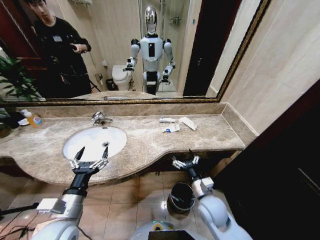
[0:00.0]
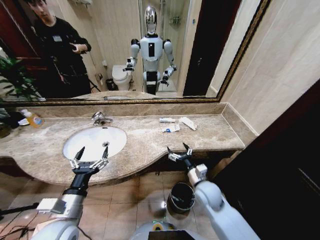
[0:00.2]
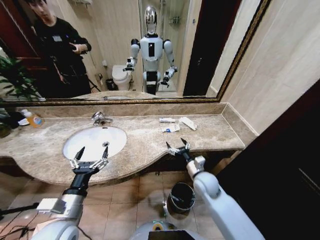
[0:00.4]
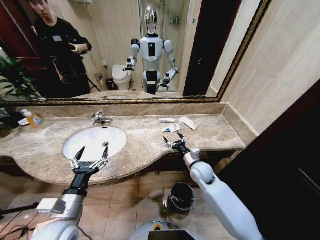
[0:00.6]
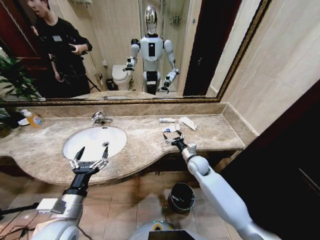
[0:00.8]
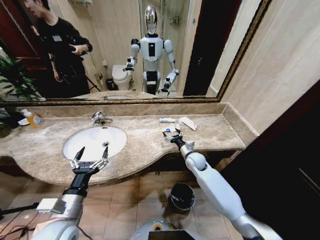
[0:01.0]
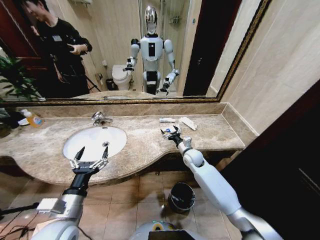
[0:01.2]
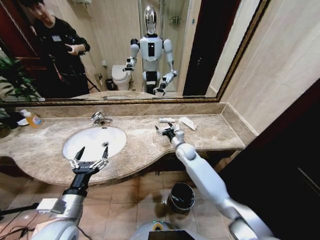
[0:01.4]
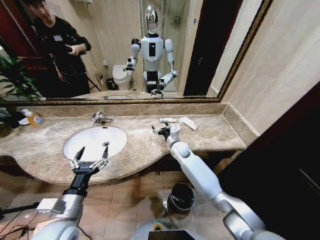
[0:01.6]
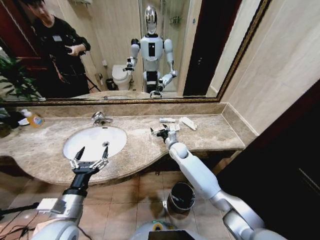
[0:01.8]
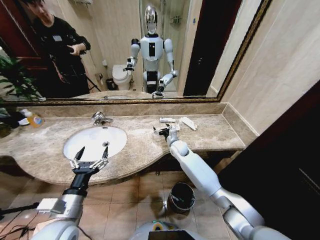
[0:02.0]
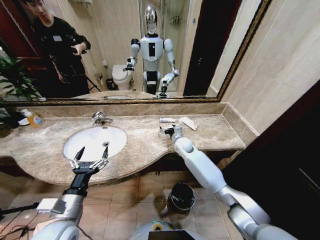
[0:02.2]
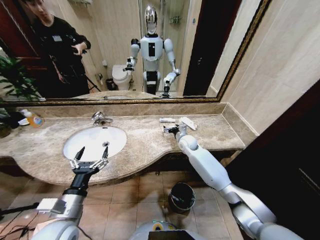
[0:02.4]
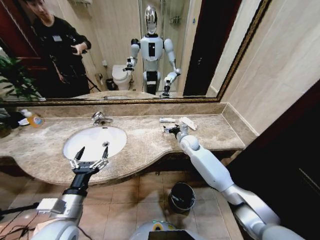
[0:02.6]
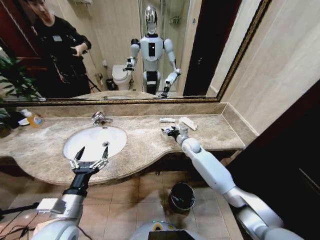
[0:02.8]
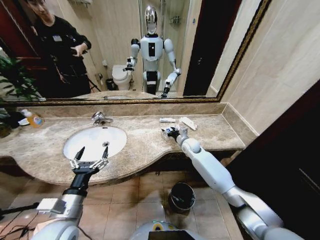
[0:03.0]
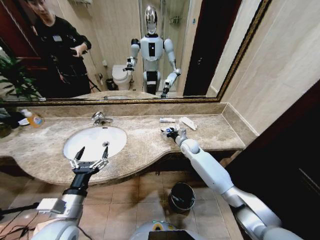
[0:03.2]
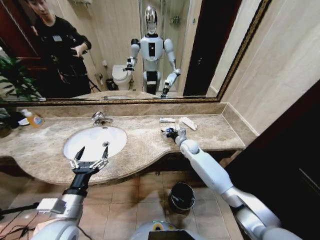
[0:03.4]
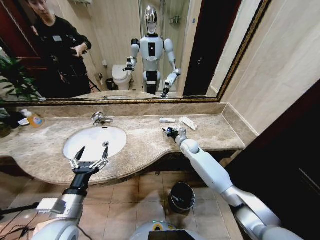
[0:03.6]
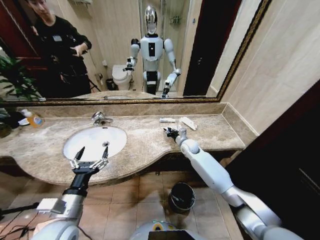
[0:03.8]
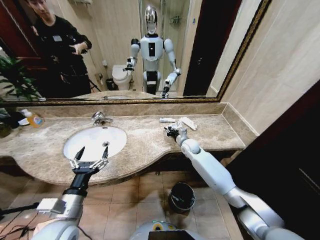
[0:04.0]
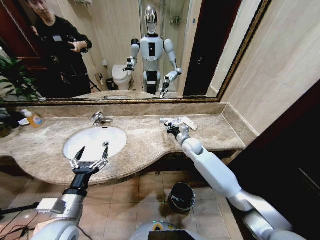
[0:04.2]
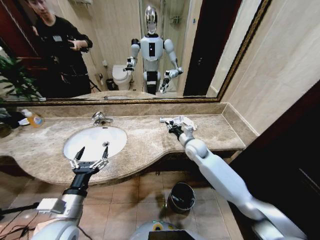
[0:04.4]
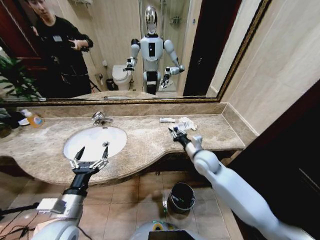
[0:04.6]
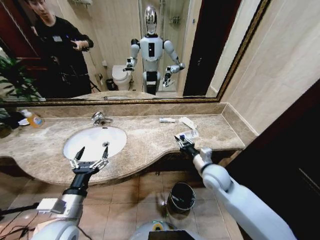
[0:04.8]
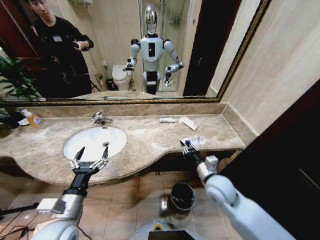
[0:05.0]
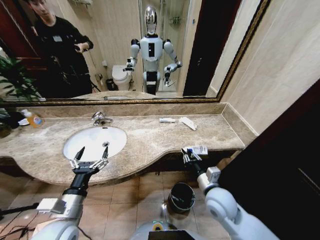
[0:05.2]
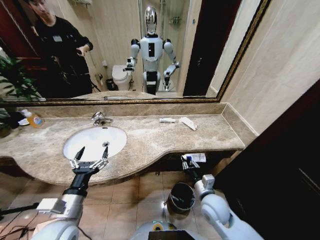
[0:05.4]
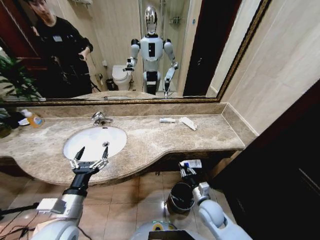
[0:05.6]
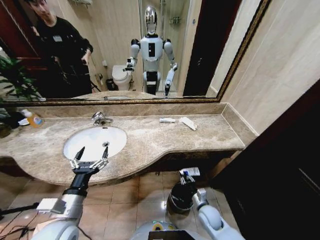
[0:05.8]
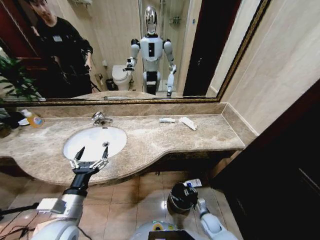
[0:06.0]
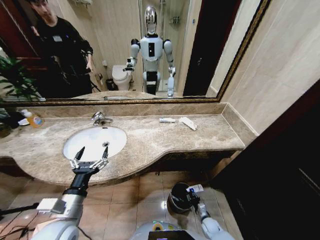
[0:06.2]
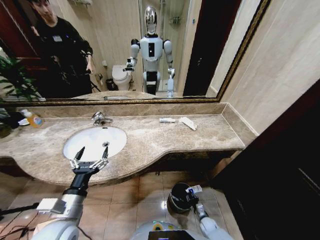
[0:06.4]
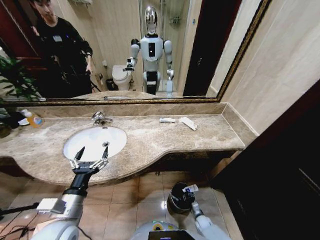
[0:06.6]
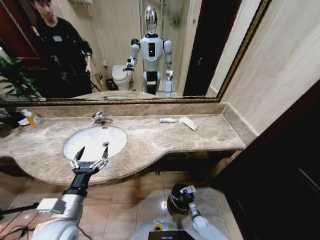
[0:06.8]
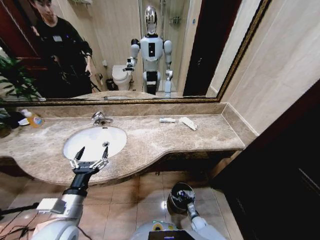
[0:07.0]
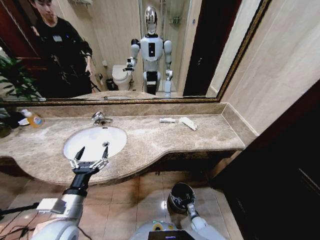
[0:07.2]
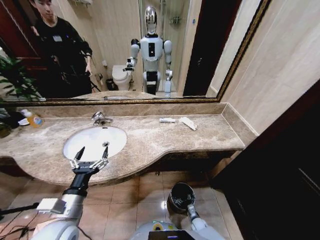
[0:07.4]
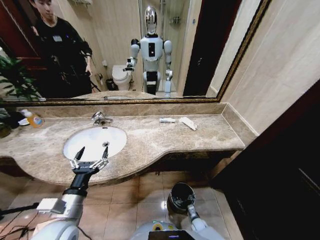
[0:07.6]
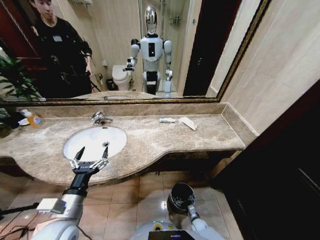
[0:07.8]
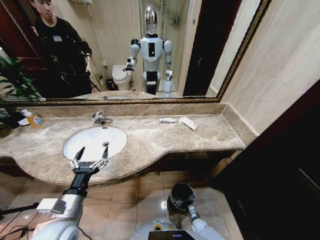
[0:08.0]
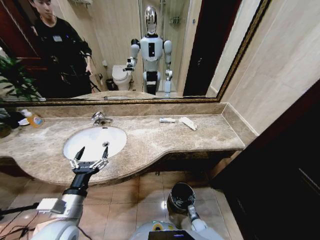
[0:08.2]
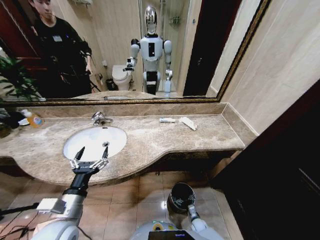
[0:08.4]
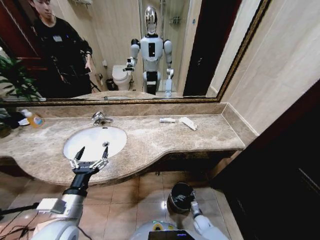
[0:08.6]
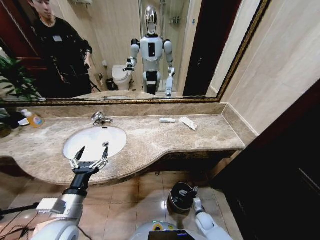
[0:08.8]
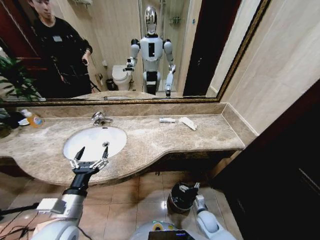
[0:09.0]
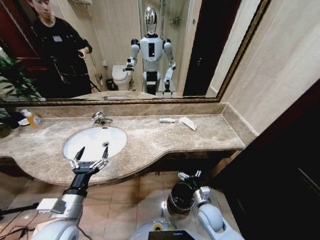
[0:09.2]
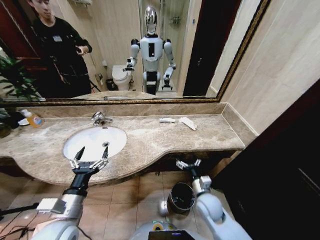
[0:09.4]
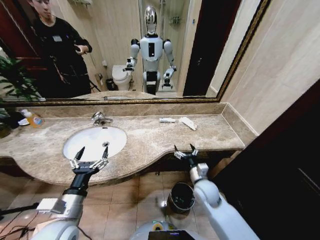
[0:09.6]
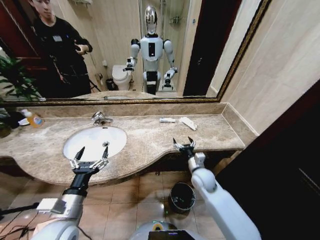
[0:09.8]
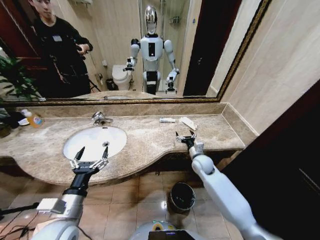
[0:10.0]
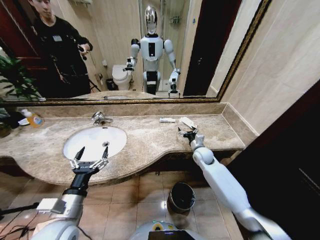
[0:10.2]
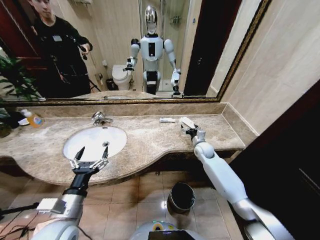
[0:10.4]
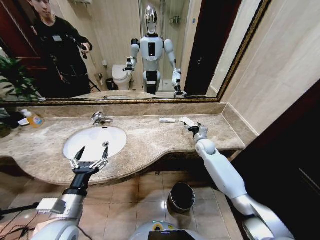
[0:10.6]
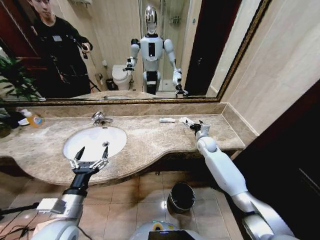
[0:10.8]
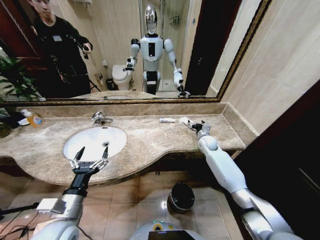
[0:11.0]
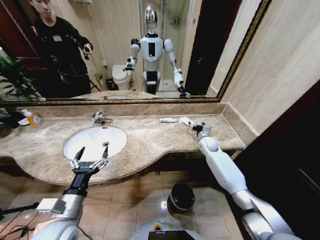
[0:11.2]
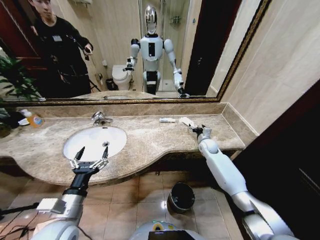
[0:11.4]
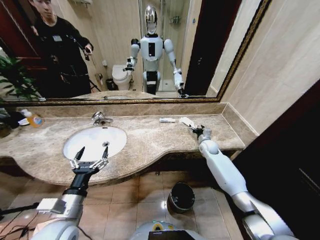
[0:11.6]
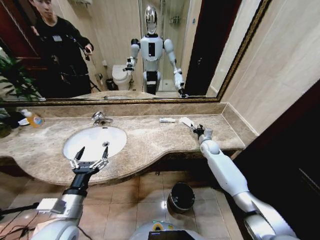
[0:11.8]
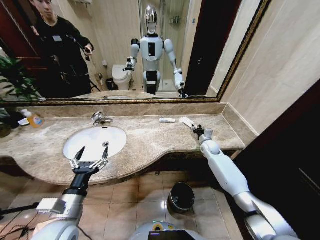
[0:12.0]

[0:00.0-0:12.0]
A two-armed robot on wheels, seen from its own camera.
Task of the whole recording: Pick up the trash from the sink and place it in the trash bin.
0:00.0 to 0:01.6: The right gripper moves forward, about 25 cm.
0:01.6 to 0:03.0: The right gripper travels to the right by some 5 cm.
0:03.0 to 0:04.4: The right gripper heads backward and upward, covering roughly 10 cm, and closes its fingers.
0:04.4 to 0:06.0: The right gripper shifts approximately 40 cm downward and backward.
0:06.0 to 0:07.6: The right gripper is displaced downward by roughly 10 cm, and opens.
0:07.6 to 0:09.0: The right gripper travels upward by roughly 20 cm.
0:09.0 to 0:10.4: The right gripper is displaced forward and upward by roughly 35 cm.
0:10.4 to 0:12.0: The right gripper travels to the right by approximately 5 cm, and closes its fingers.

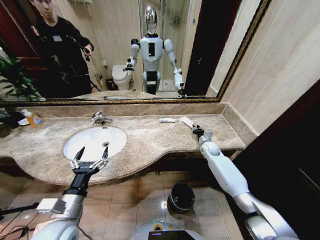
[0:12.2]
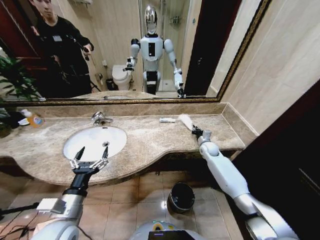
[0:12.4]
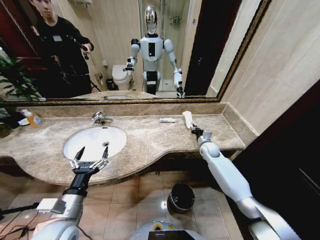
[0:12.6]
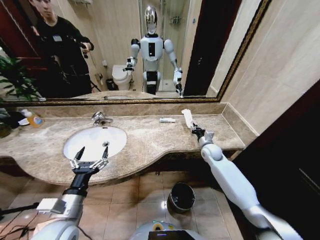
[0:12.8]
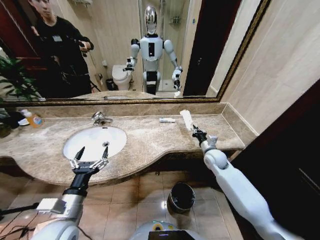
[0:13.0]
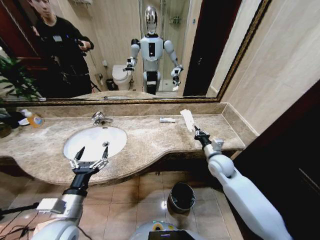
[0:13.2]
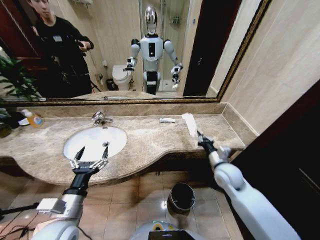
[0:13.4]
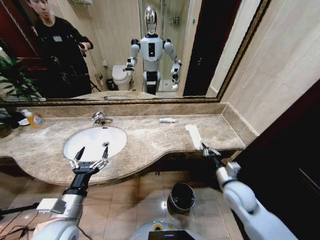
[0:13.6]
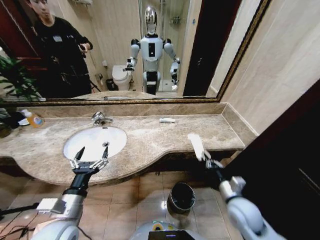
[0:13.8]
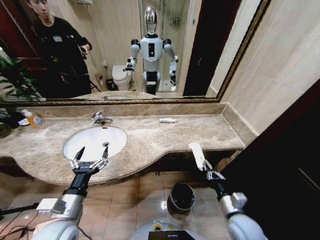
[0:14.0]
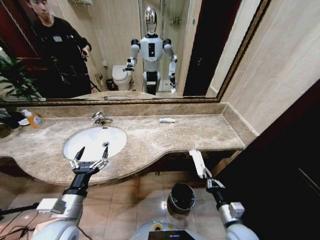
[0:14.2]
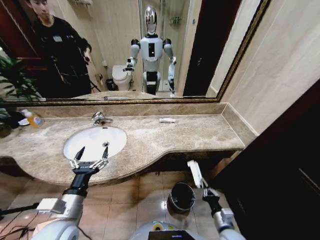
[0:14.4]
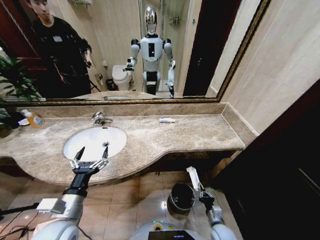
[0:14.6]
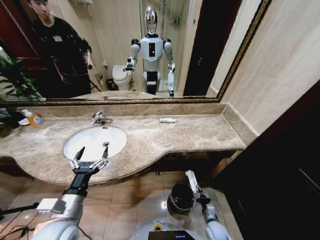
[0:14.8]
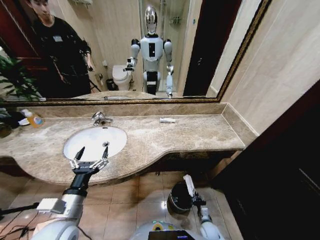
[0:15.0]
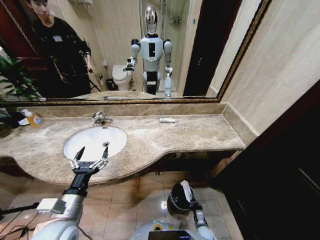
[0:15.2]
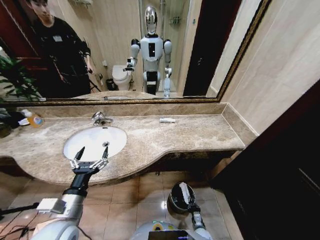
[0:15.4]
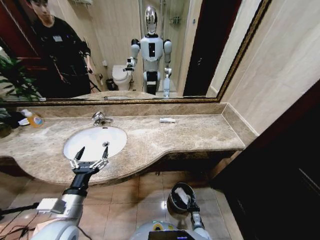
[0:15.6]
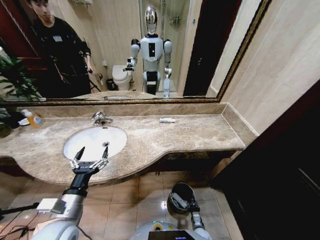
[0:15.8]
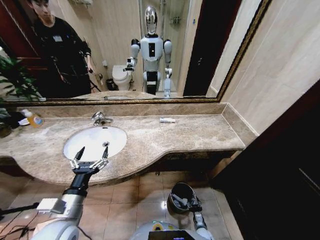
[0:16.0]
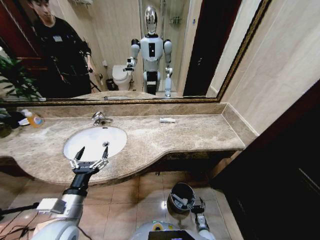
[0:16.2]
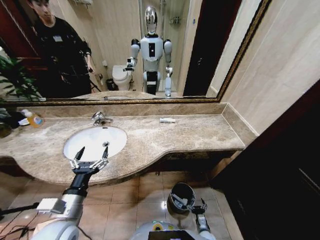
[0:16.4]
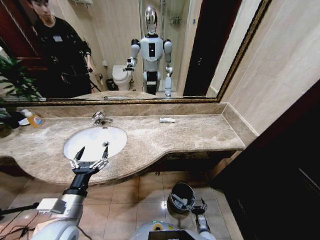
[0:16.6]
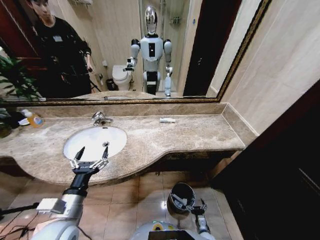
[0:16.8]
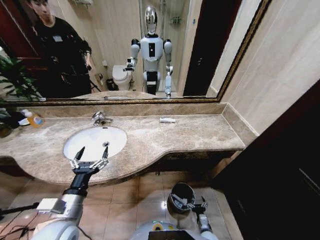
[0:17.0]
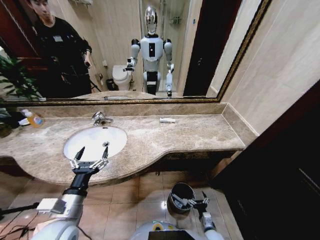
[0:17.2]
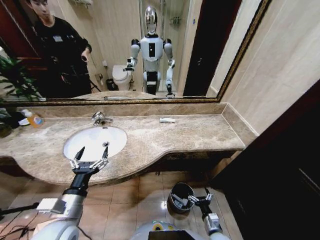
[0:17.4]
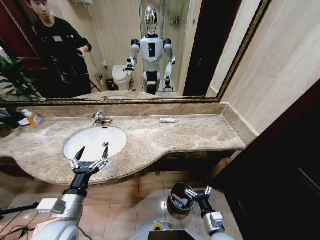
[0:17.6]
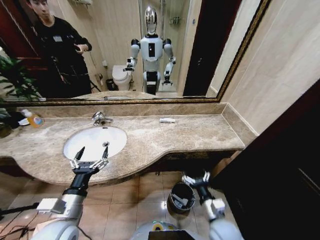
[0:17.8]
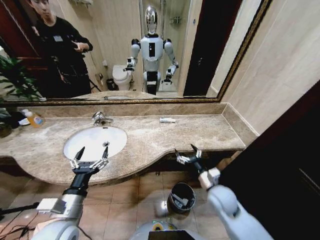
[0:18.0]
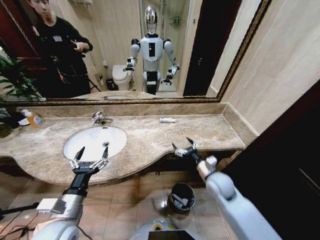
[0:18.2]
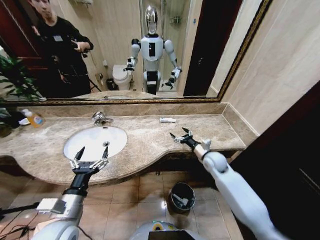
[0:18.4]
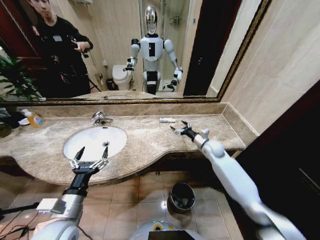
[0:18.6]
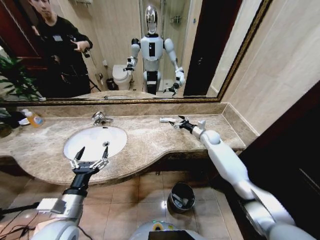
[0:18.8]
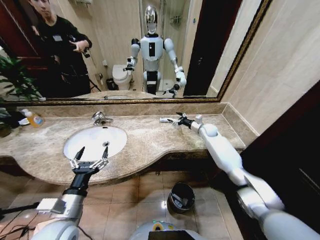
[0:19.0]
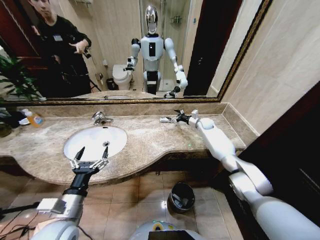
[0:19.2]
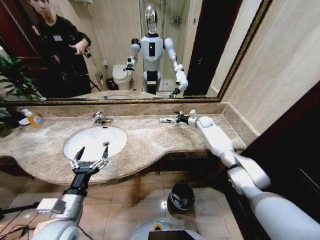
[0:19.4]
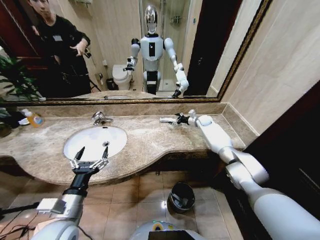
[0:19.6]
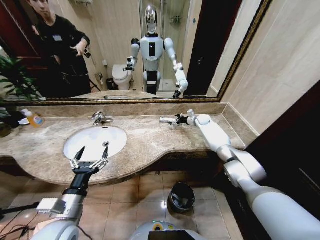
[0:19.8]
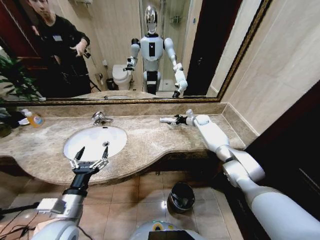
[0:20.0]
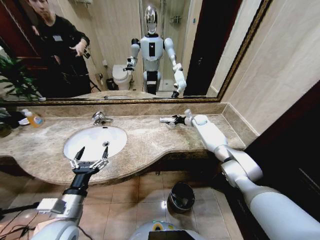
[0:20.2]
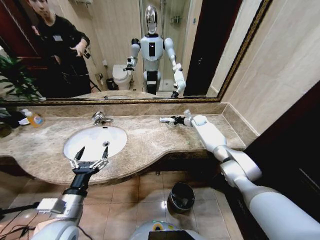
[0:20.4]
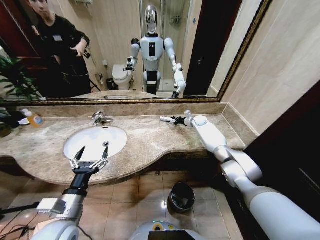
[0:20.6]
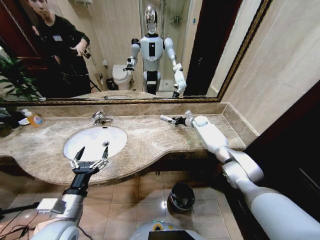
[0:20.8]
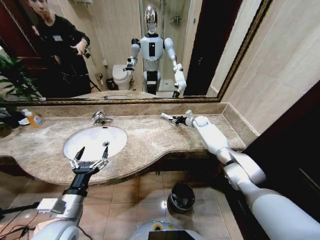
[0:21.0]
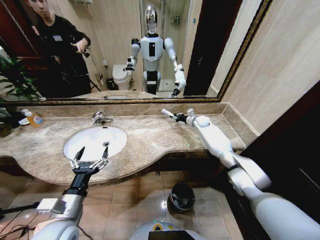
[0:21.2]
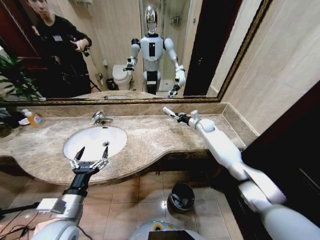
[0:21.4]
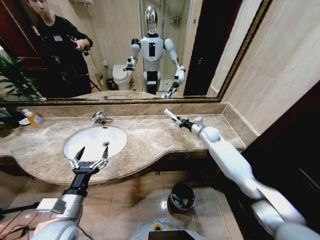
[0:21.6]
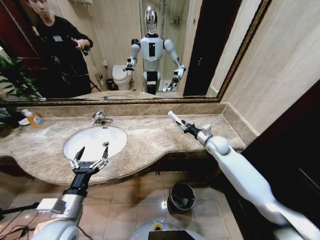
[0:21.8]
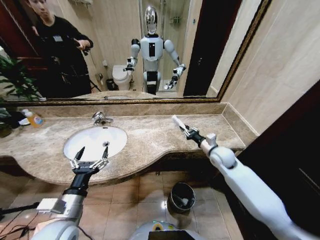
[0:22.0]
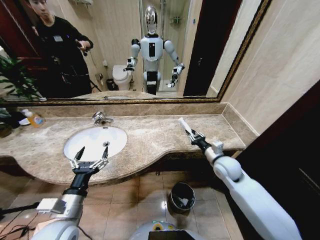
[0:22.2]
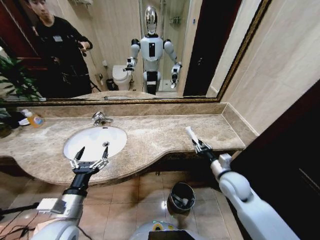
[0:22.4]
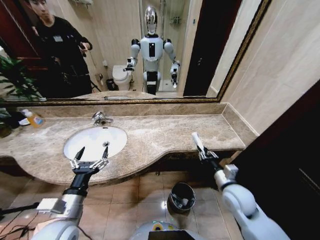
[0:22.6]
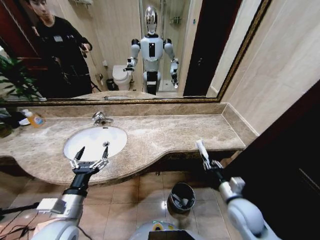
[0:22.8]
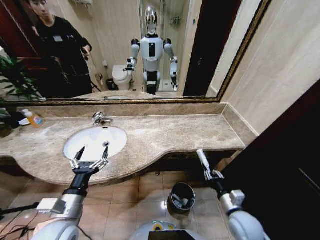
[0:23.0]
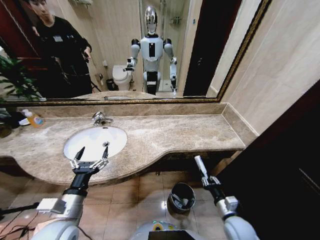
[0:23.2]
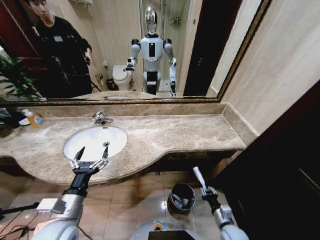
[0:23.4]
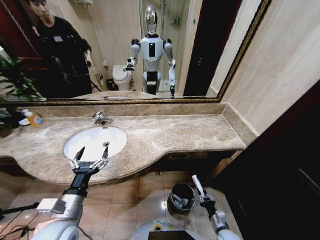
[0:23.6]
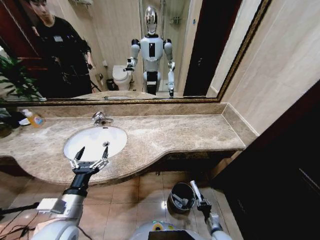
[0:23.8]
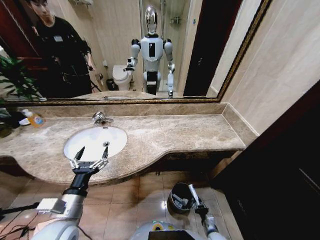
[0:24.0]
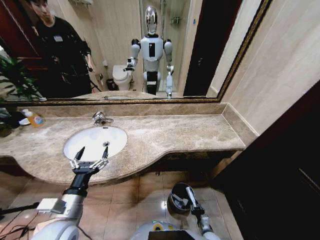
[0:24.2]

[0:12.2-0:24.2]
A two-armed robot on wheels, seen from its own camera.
Task of the whole recording: Pick up the trash from the sink and place it in the trash bin.
0:12.2 to 0:13.8: The right gripper shifts some 30 cm backward.
0:13.8 to 0:15.2: The right gripper goes some 35 cm downward.
0:15.2 to 0:16.6: The right gripper opens.
0:16.6 to 0:18.2: The right gripper heads upward and forward, covering about 40 cm.
0:18.2 to 0:19.8: The right gripper travels forward by approximately 35 cm.
0:19.8 to 0:21.2: The right gripper closes its fingers.
0:21.2 to 0:22.6: The right gripper goes approximately 40 cm backward.
0:22.6 to 0:24.2: The right gripper goes approximately 35 cm downward.
